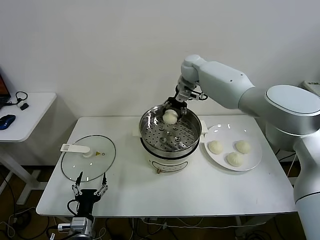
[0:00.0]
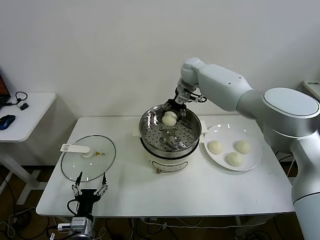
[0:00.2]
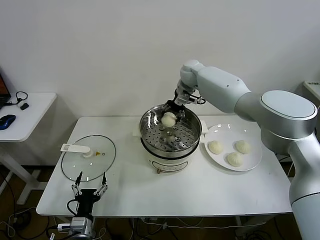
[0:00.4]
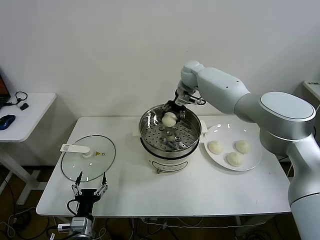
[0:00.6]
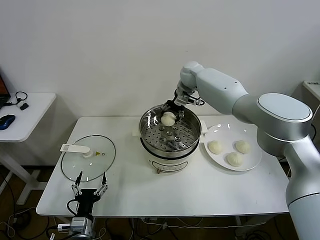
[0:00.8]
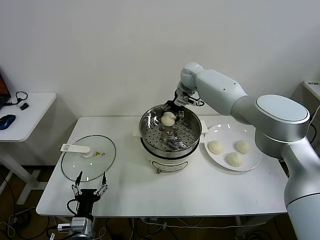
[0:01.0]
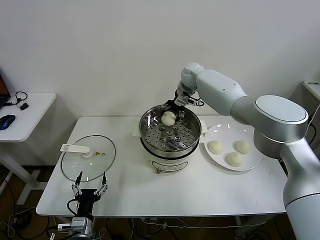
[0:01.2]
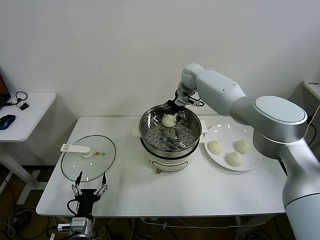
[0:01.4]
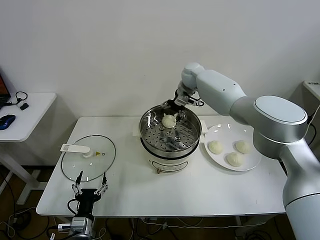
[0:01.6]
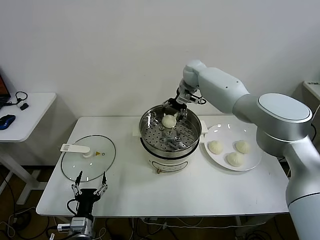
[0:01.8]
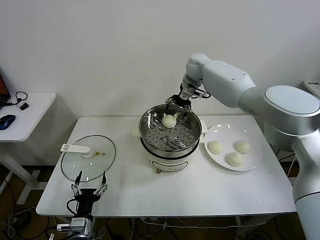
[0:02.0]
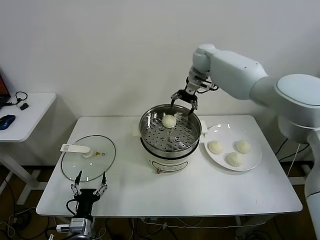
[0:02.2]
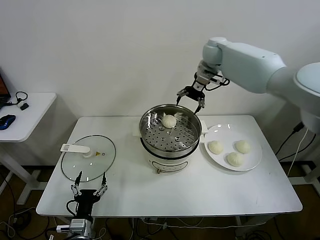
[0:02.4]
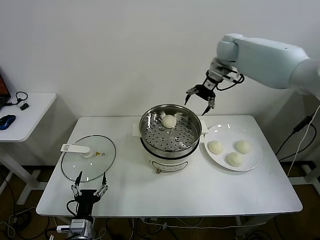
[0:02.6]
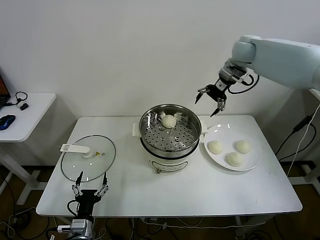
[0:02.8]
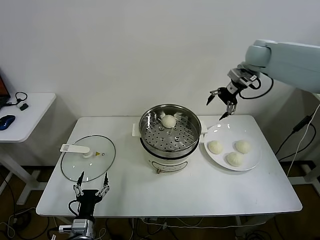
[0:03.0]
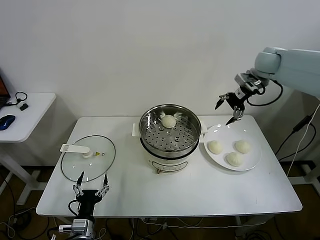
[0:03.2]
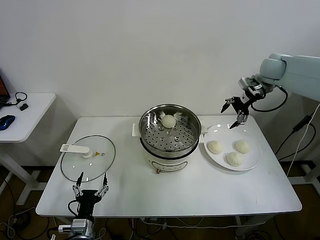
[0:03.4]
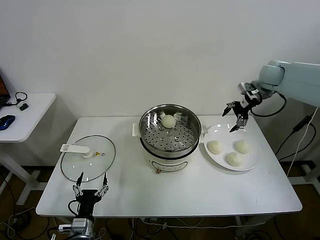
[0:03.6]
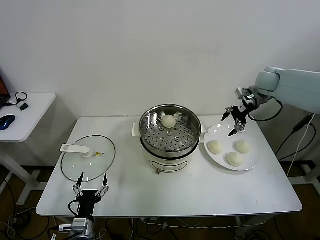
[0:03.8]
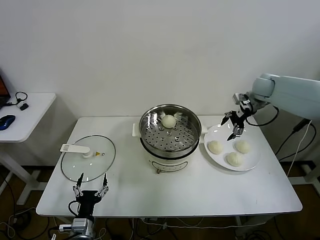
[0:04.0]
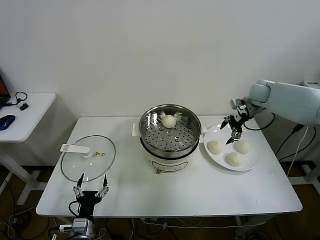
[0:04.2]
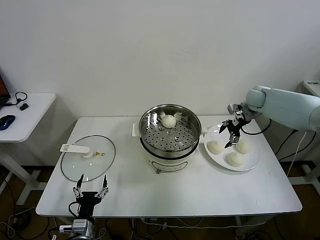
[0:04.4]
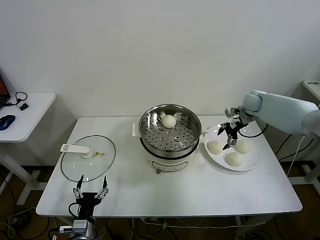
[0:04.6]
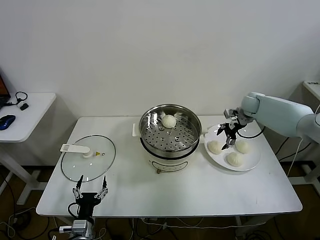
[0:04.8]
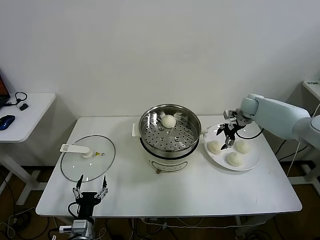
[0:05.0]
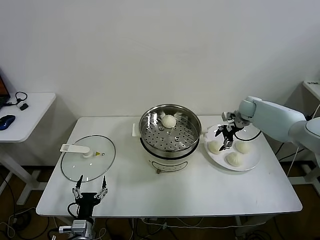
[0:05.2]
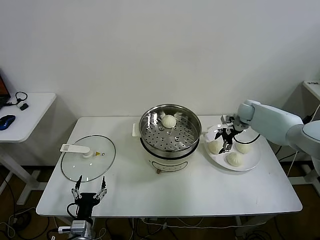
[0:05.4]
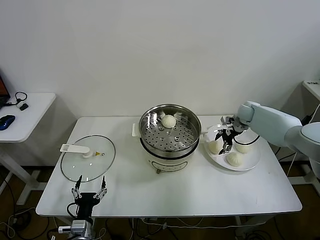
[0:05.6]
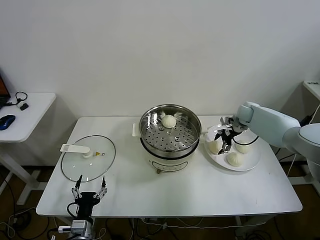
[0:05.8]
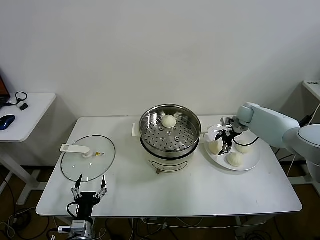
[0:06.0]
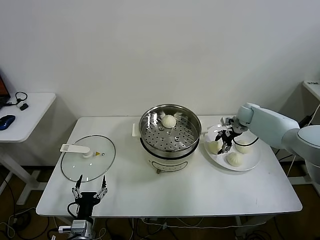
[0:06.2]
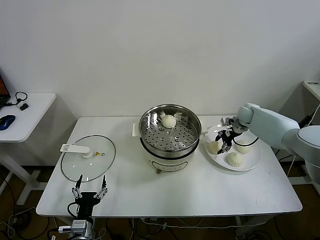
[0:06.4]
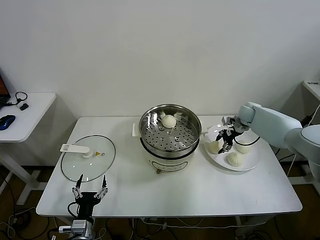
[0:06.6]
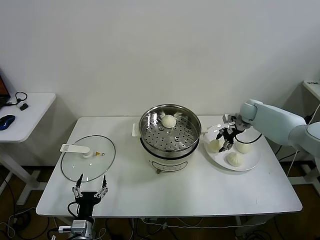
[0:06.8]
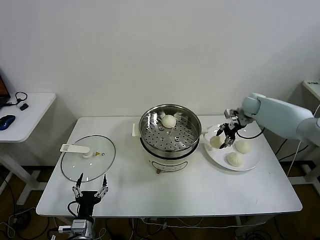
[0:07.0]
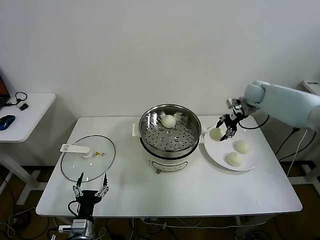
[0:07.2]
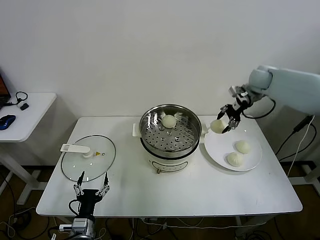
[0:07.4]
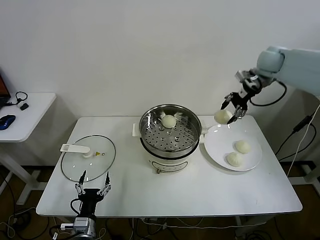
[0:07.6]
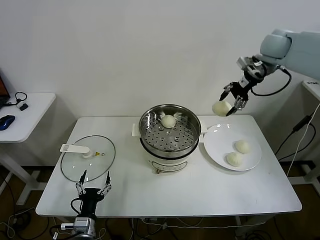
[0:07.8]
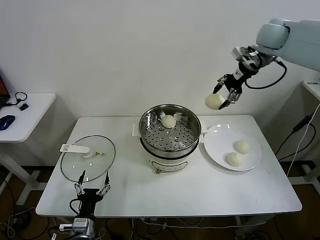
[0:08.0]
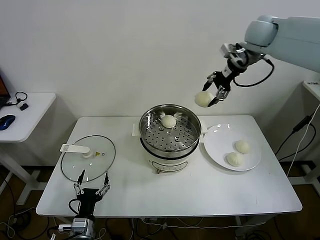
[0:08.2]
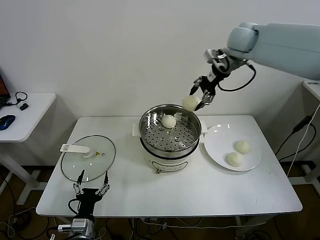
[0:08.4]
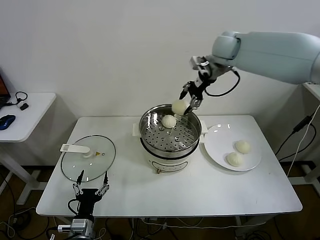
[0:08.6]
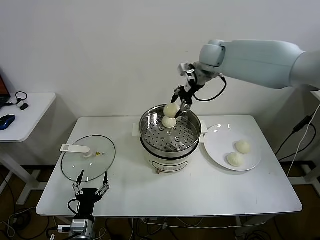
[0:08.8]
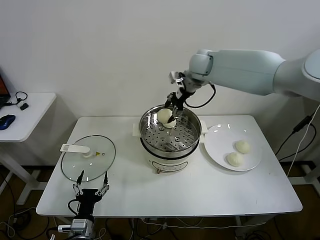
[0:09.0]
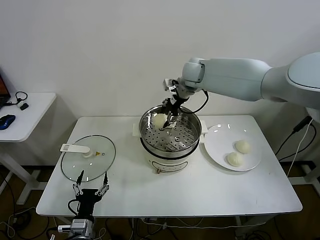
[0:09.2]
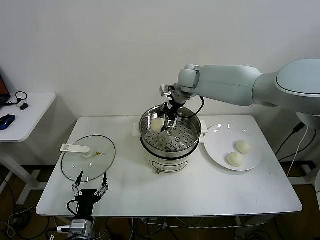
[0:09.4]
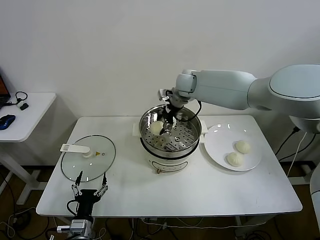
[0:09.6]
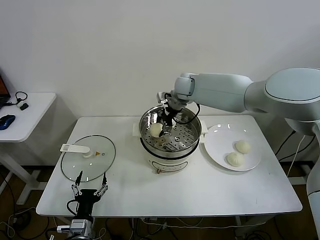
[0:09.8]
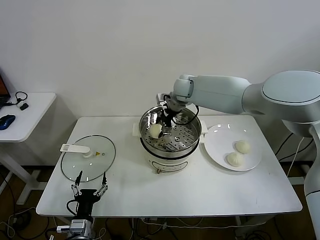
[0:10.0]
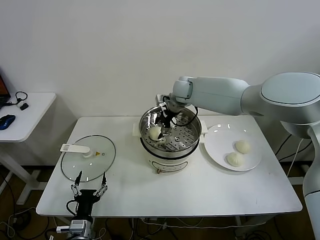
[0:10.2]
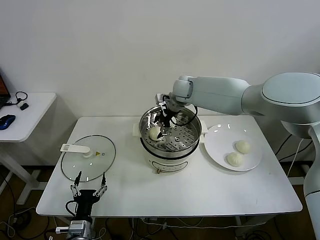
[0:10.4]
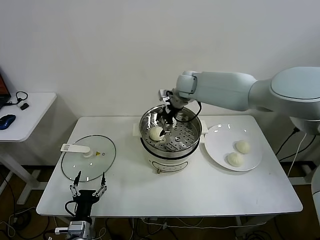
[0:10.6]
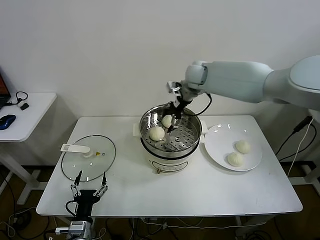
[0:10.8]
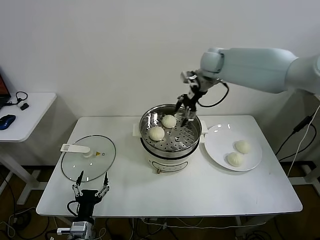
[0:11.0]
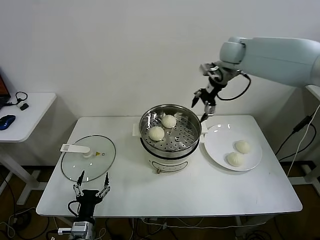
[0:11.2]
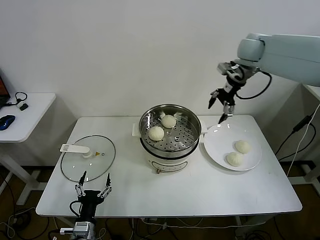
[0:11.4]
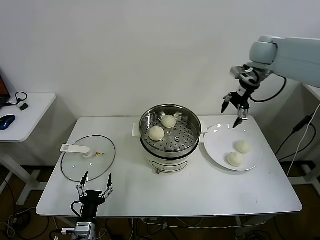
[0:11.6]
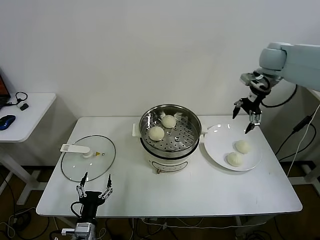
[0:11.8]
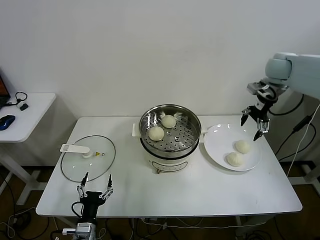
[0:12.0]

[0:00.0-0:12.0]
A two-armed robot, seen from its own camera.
Task of the whole recording: take steamed baozi put them in steamer.
Step, 0.0 to 2.0 s: Place the baozi on the steamer with right gripper.
Step, 2.2 to 6.4 s: Grasp the baozi in the plate with right gripper.
Step, 6.6 to 10.6 s: Place the baozi on the steamer with right gripper.
0.0 to 1.6 s: The right gripper opens its fingers.
1.6 to 3.0 s: The right gripper shifts about 25 cm to the right and upward.
3.0 to 4.4 s: The right gripper shifts approximately 15 cm downward.
4.4 to 6.0 s: The right gripper goes roughly 10 cm downward.
6.0 to 7.6 s: The right gripper moves upward, roughly 25 cm, and closes.
7.6 to 9.0 s: The right gripper moves to the left, some 25 cm.
9.0 to 10.4 s: The right gripper is displaced downward by some 10 cm, and opens its fingers.
10.4 to 12.0 s: The right gripper shifts approximately 30 cm to the right.

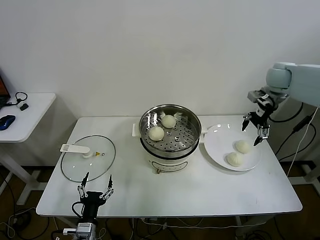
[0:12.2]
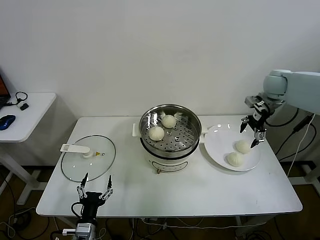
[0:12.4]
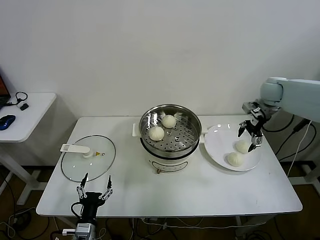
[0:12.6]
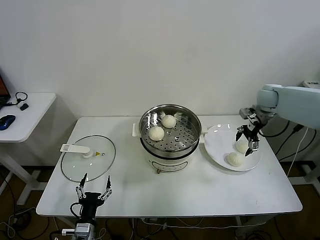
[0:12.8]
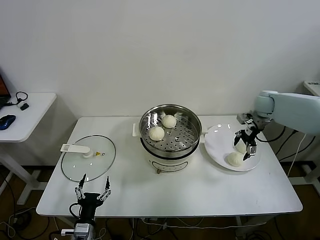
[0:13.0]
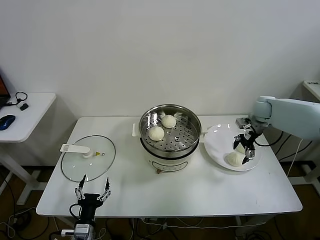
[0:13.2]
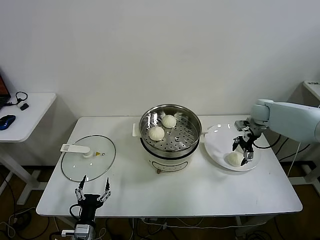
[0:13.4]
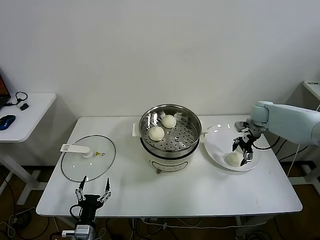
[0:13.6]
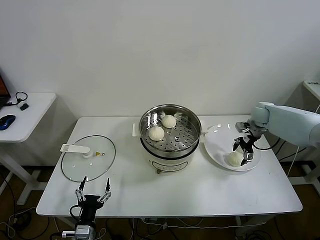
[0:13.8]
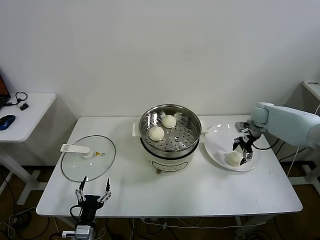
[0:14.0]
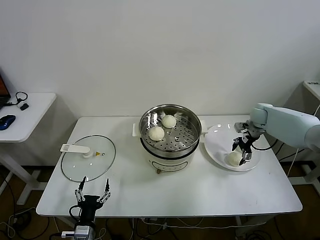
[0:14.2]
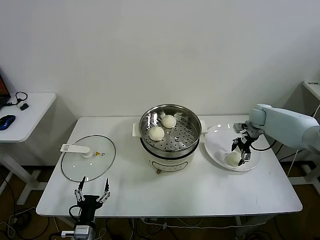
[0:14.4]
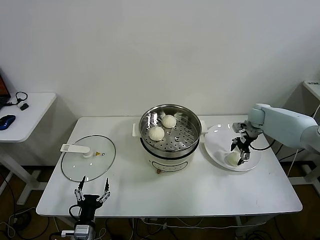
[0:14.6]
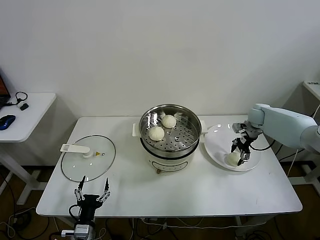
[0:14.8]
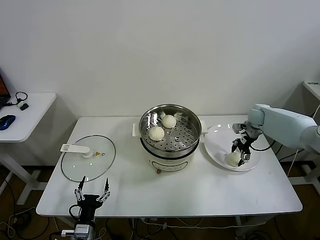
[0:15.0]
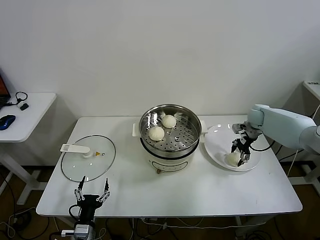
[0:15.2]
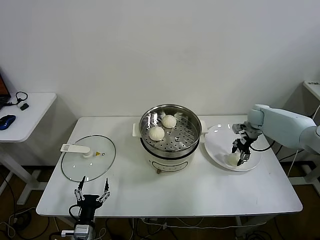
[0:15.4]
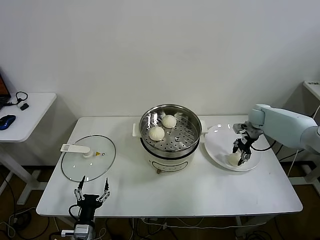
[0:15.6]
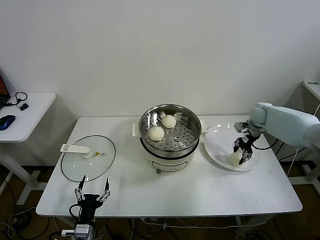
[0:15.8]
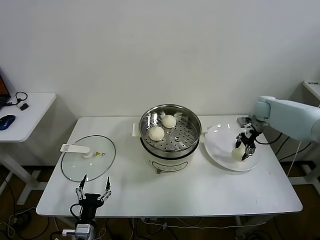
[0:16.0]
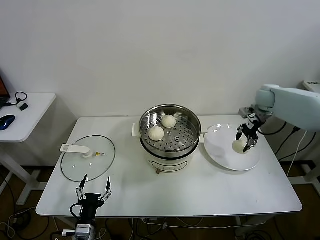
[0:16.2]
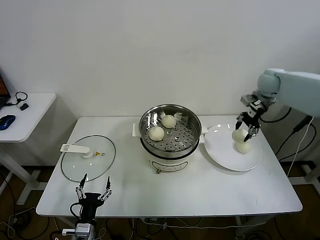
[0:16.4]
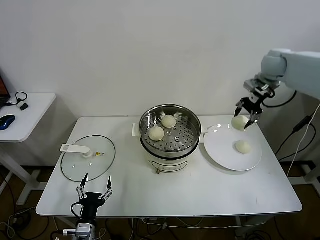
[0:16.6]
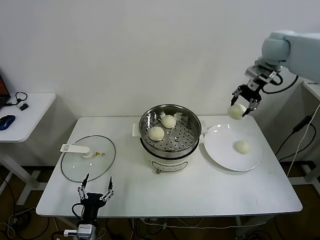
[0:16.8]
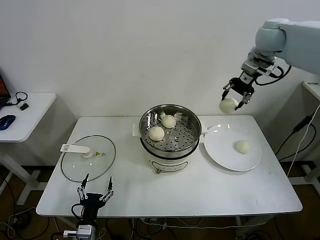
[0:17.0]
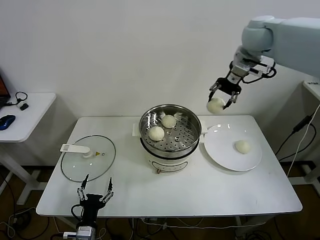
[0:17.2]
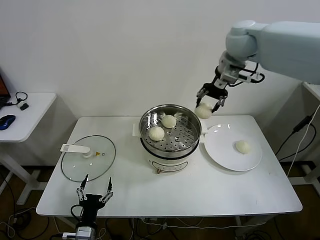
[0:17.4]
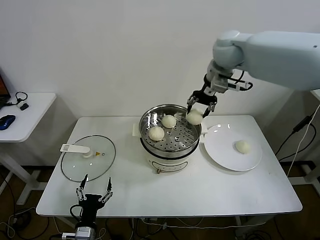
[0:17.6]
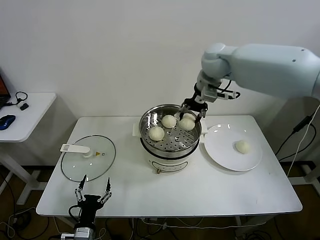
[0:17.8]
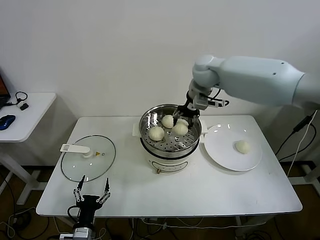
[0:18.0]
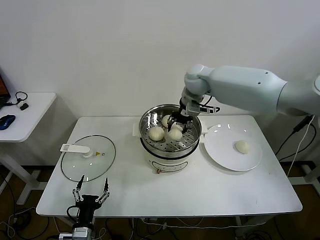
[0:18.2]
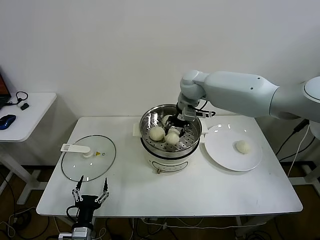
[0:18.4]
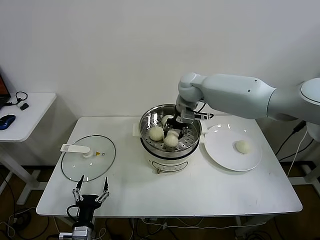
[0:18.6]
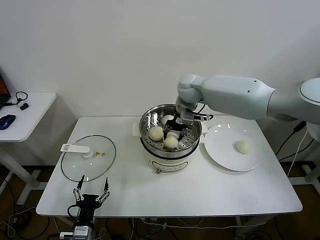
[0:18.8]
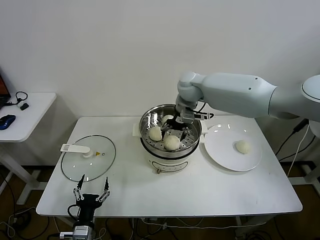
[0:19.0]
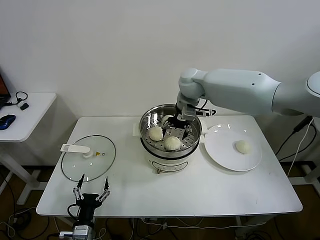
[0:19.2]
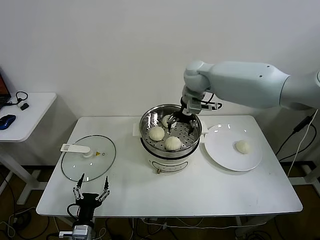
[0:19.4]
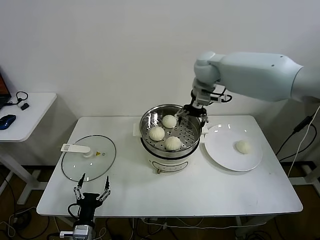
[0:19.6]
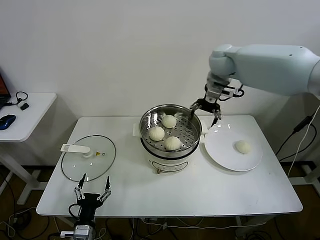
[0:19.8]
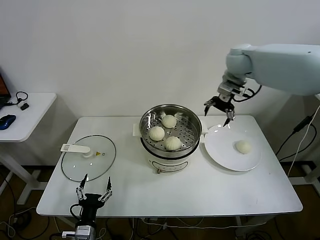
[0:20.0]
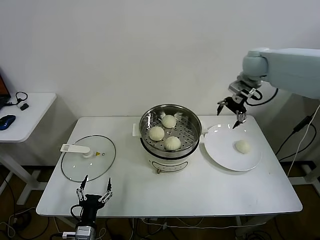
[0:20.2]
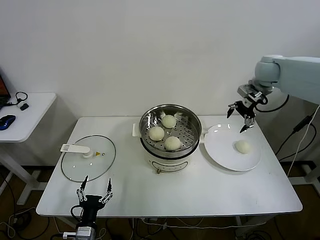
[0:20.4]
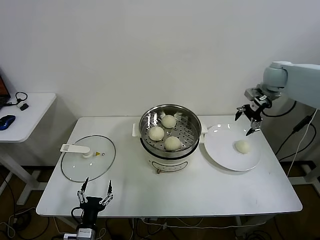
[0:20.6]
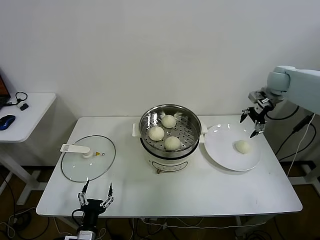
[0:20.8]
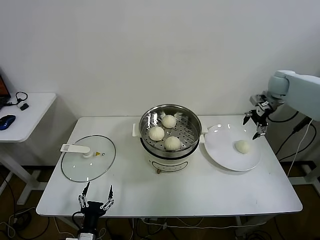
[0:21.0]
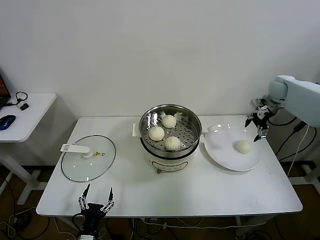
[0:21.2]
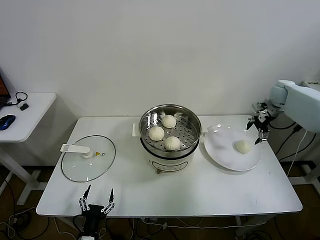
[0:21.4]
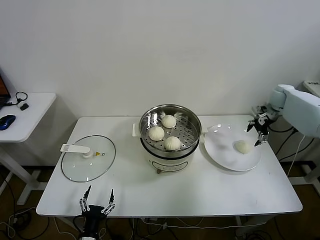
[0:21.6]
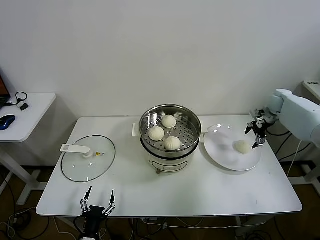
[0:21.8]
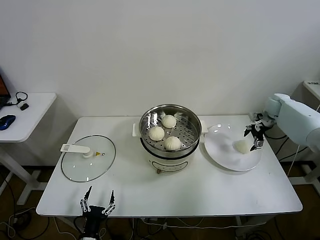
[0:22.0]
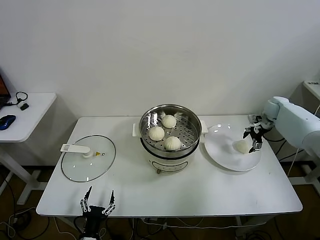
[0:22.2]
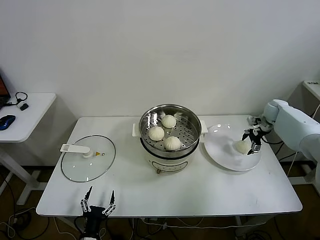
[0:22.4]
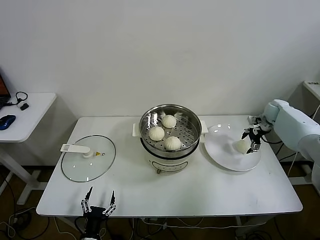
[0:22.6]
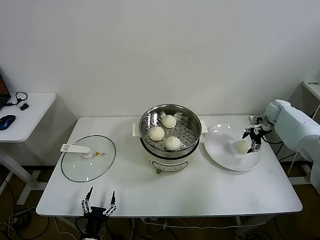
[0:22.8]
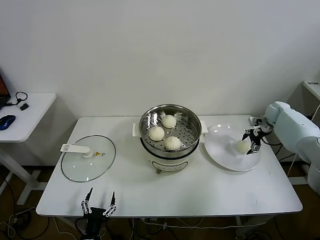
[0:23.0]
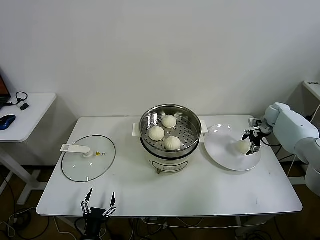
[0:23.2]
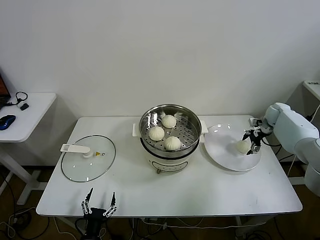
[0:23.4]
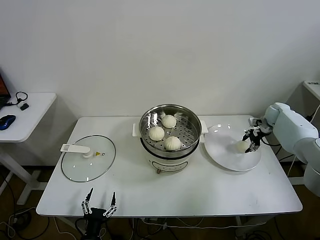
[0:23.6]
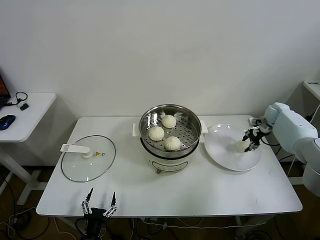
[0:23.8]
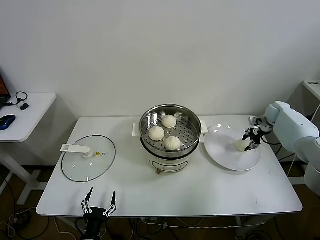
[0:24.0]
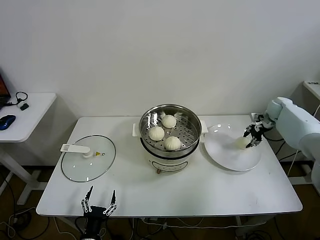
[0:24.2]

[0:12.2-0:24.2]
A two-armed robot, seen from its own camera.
Task of the whole recording: take steamed baozi put them in steamer.
Step, 12.2 to 15.4 s: Grasp the baozi in the plate with right gripper.
Step, 15.6 to 19.4 s: Place the baozi on the steamer with right gripper.
Step, 19.6 to 23.6 s: Grasp the baozi in the plate with right gripper.
12.2 to 13.8 s: The right gripper travels downward by about 15 cm.
13.8 to 15.2 s: The right gripper closes up.
15.2 to 16.6 s: The right gripper goes some 25 cm upward, and closes.
16.6 to 18.2 s: The right gripper moves to the left, approximately 25 cm.
18.2 to 19.8 s: The right gripper heads to the right and upward, covering roughly 10 cm, and opens up.
19.8 to 21.2 s: The right gripper heads to the right and downward, covering approximately 30 cm.
21.2 to 22.6 s: The right gripper heads downward, covering roughly 10 cm.
22.6 to 24.2 s: The right gripper closes.
